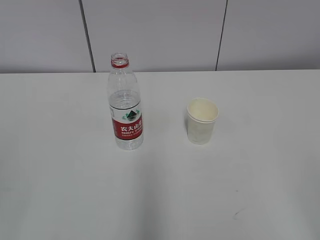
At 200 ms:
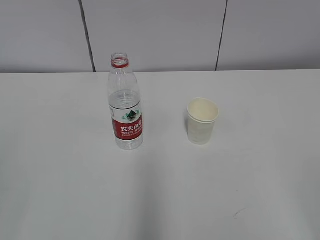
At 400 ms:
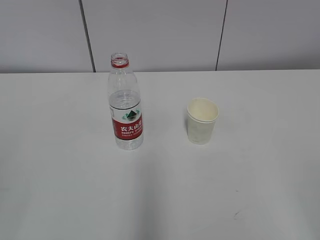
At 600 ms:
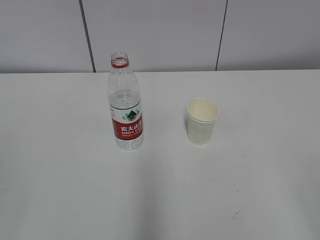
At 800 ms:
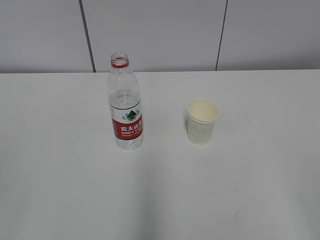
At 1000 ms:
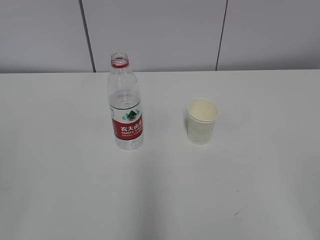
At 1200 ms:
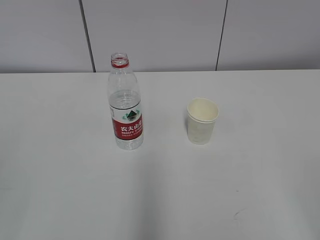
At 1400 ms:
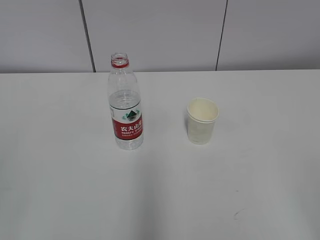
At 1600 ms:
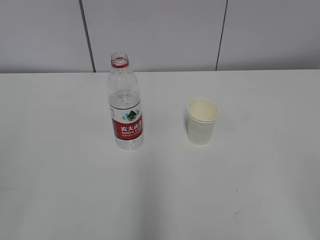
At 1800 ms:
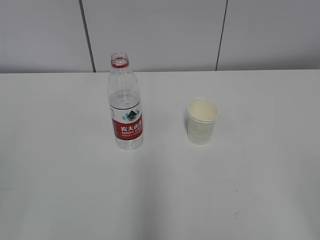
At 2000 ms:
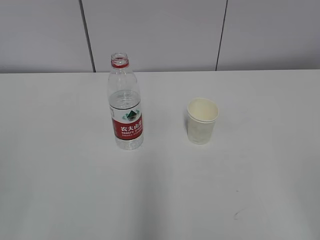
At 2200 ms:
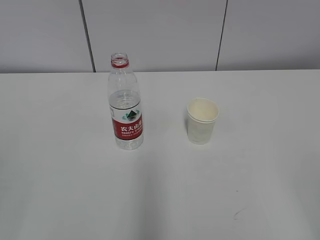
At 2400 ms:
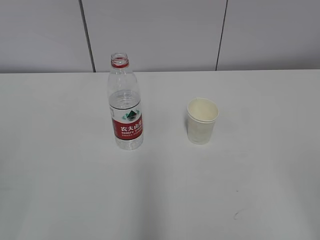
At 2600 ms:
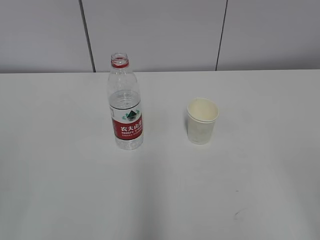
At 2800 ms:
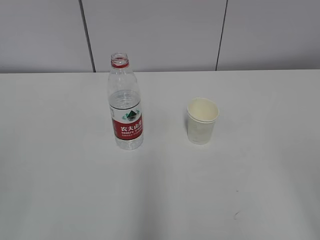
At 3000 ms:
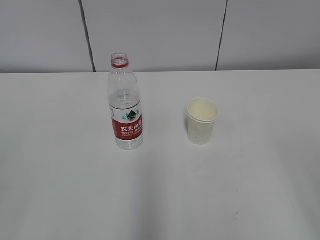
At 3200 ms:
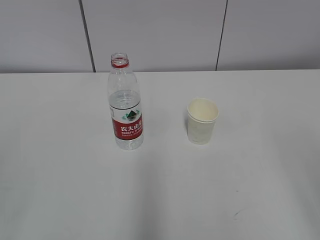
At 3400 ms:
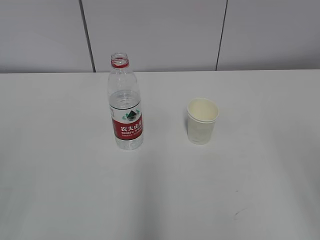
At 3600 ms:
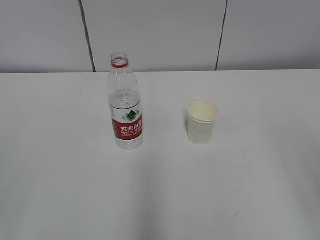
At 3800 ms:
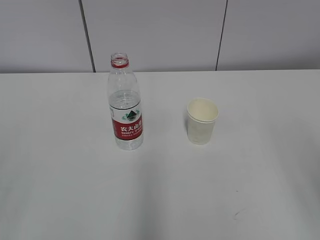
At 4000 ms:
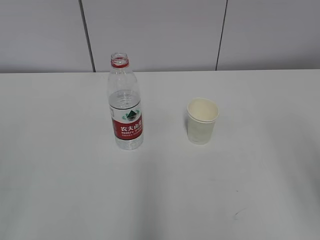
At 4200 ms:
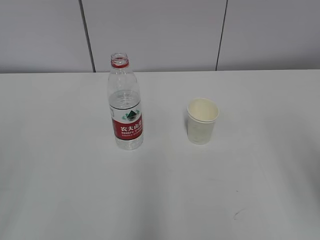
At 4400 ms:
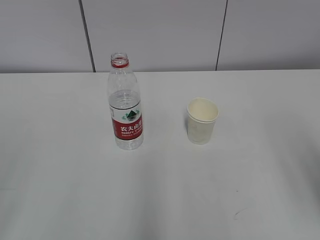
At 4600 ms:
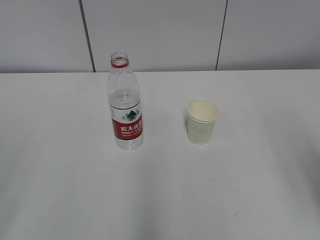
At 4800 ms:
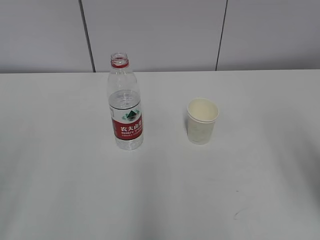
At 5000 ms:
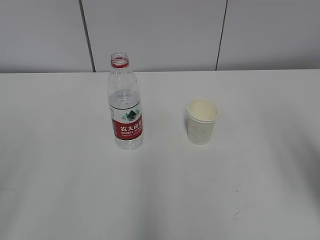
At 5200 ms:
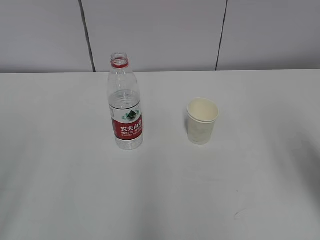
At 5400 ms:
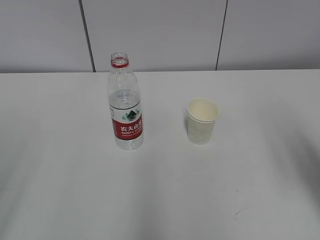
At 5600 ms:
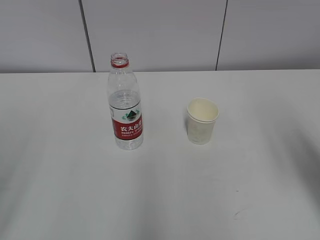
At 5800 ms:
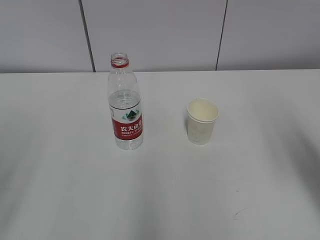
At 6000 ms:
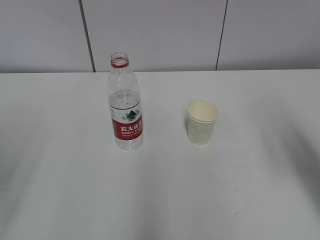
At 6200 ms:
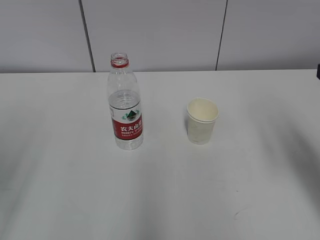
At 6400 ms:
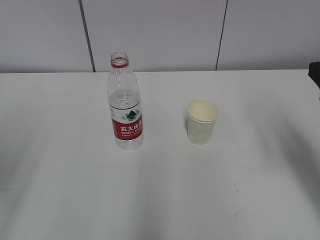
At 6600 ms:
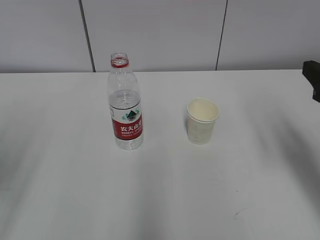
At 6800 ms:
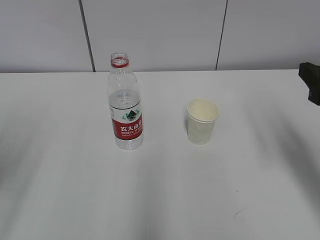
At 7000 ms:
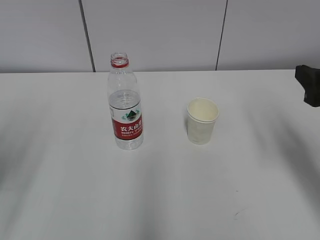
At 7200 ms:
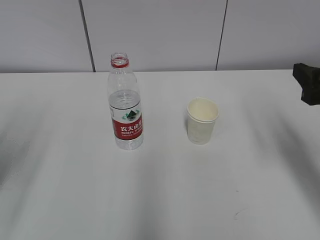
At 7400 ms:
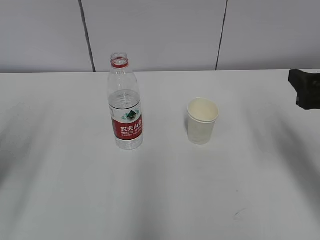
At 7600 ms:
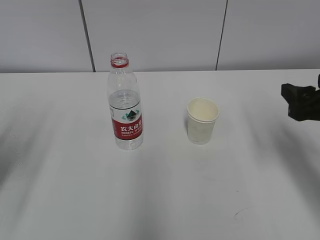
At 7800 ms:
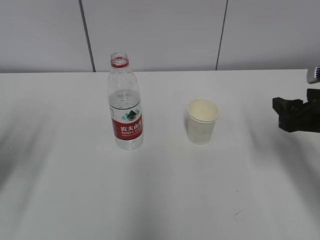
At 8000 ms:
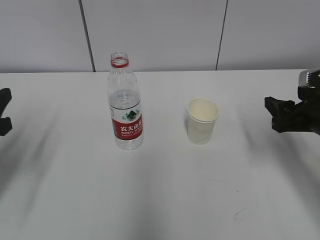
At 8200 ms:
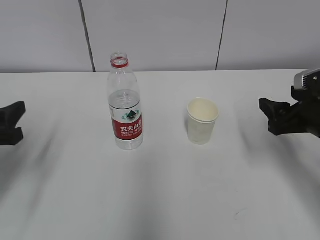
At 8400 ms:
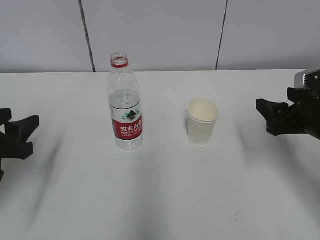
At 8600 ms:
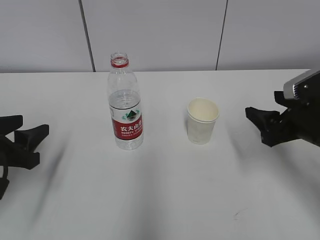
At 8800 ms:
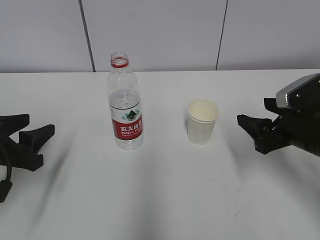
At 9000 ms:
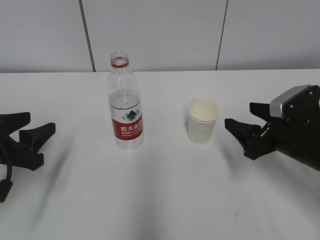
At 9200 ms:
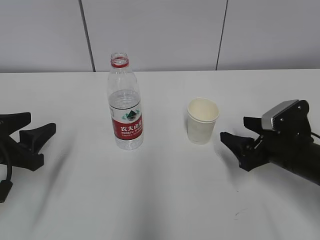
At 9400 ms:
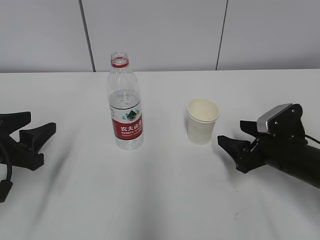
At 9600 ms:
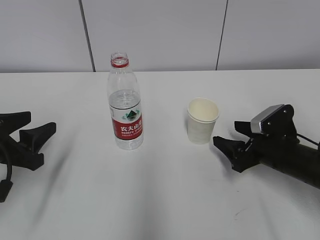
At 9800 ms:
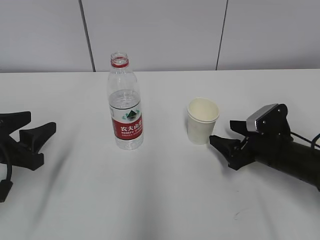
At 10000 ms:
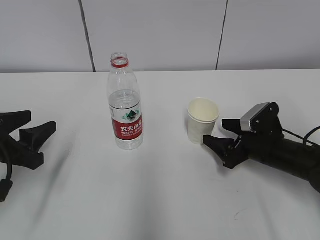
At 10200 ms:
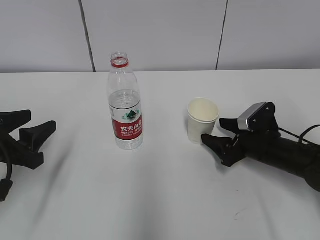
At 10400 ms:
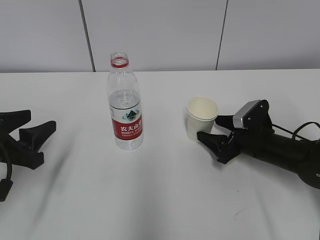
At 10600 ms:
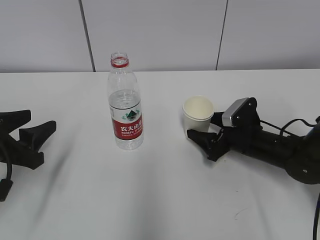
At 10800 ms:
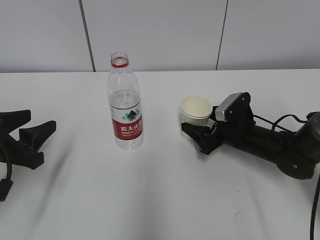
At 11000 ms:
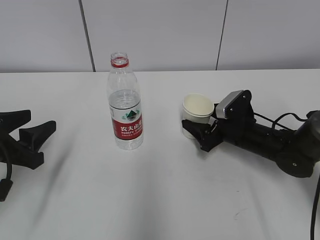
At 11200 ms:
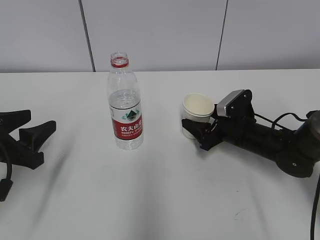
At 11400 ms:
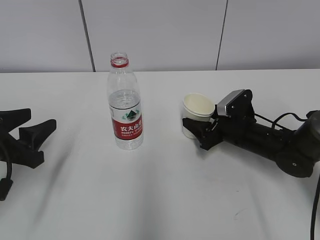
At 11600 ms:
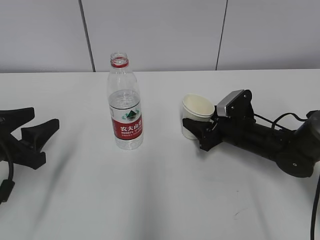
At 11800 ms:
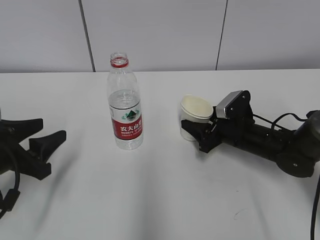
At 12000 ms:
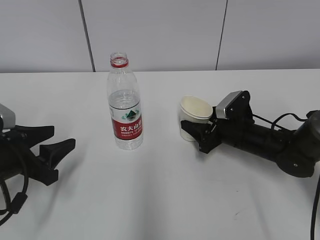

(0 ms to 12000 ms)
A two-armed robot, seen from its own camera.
4400 ms - 6000 ms: The right gripper goes some 10 cm forward.
6000 ms - 7600 ms: The right gripper goes roughly 10 cm downward and forward.
7600 ms - 9000 ms: The two grippers go some 10 cm downward.
9000 ms - 10400 ms: The right gripper is displaced downward and forward by roughly 10 cm.
10400 ms - 12000 ms: The right gripper closes.

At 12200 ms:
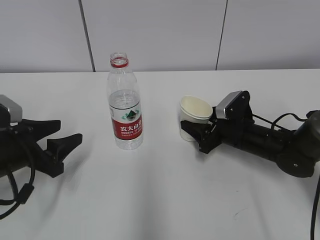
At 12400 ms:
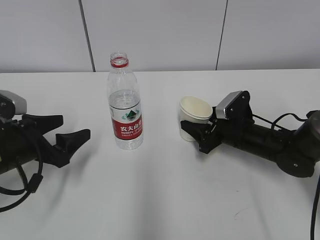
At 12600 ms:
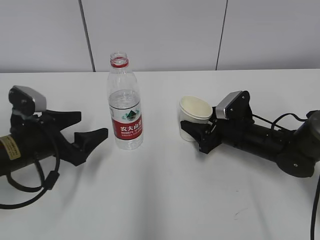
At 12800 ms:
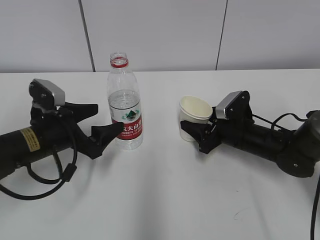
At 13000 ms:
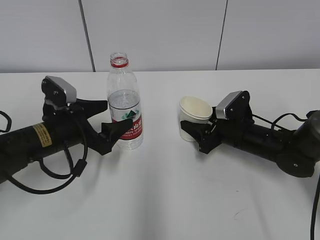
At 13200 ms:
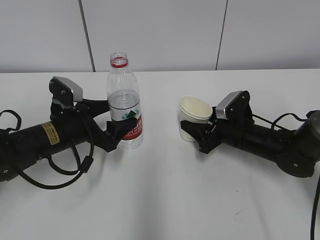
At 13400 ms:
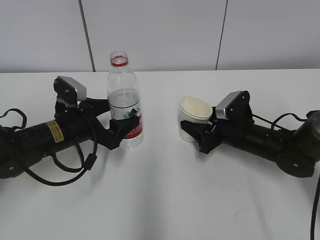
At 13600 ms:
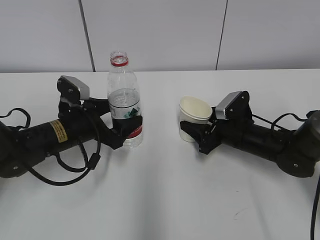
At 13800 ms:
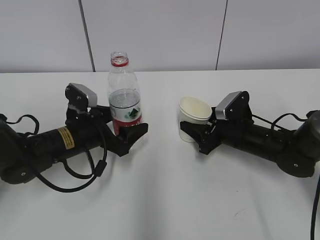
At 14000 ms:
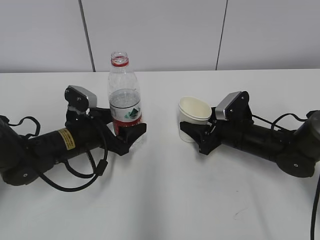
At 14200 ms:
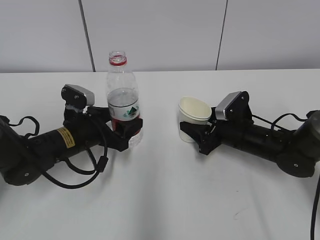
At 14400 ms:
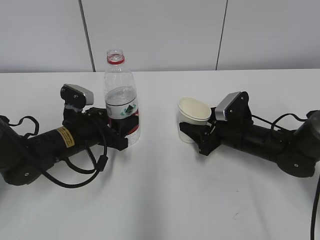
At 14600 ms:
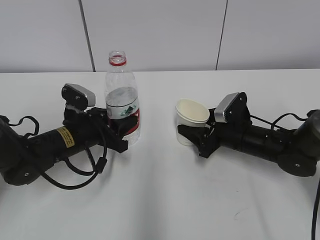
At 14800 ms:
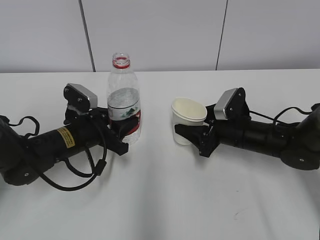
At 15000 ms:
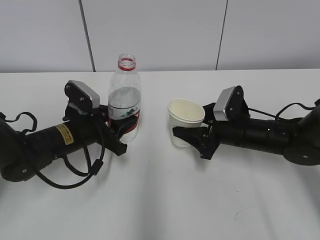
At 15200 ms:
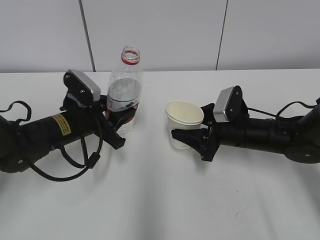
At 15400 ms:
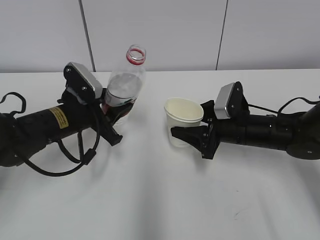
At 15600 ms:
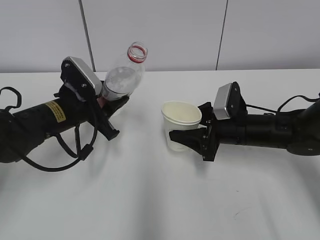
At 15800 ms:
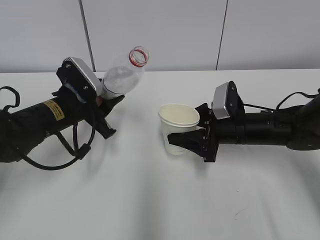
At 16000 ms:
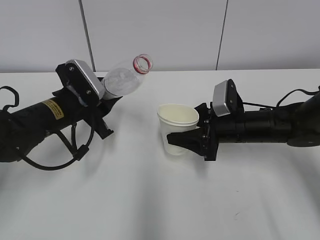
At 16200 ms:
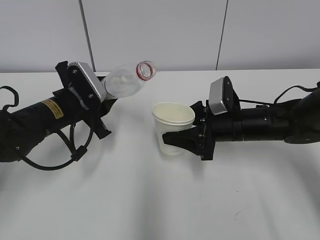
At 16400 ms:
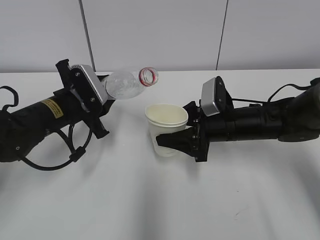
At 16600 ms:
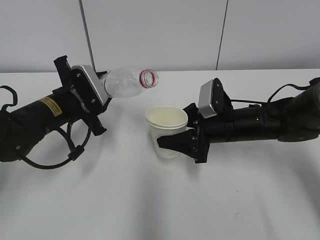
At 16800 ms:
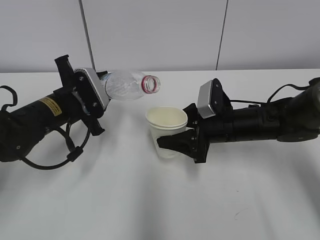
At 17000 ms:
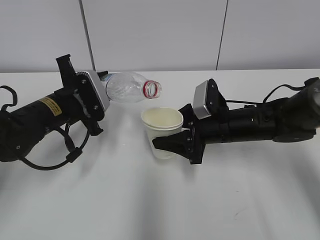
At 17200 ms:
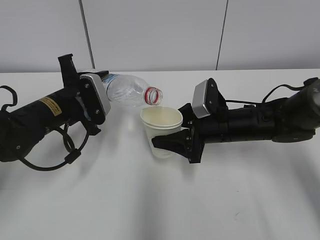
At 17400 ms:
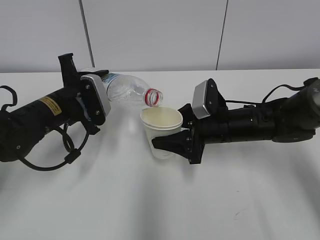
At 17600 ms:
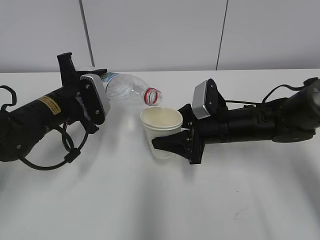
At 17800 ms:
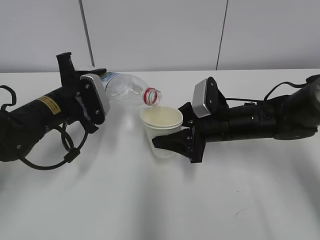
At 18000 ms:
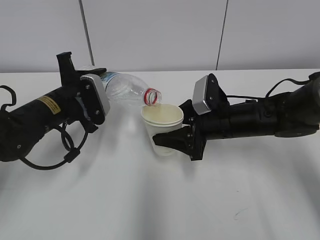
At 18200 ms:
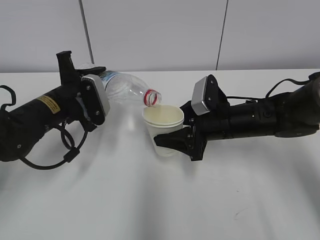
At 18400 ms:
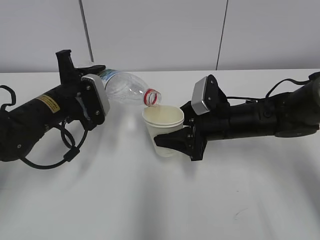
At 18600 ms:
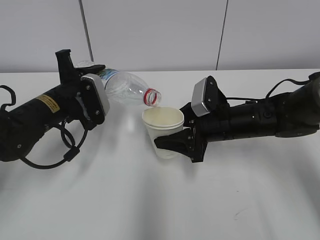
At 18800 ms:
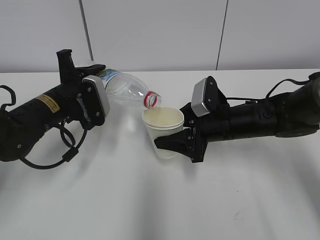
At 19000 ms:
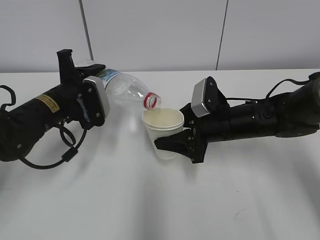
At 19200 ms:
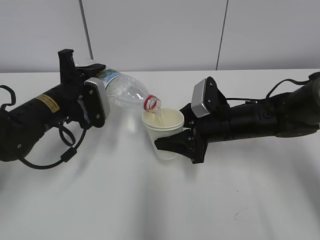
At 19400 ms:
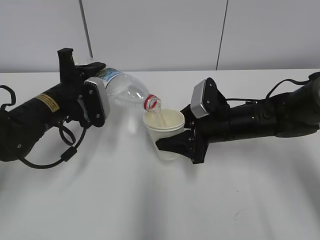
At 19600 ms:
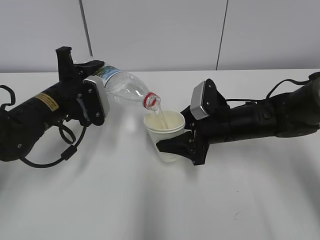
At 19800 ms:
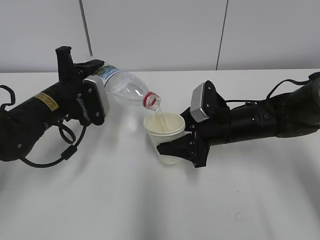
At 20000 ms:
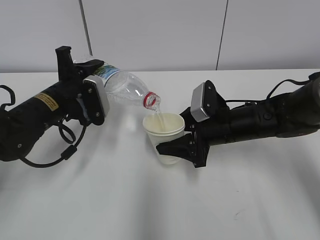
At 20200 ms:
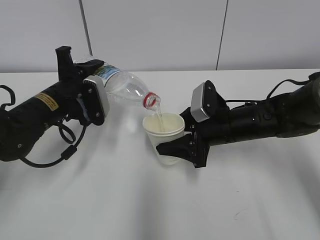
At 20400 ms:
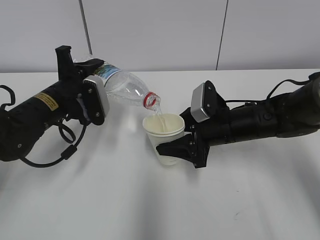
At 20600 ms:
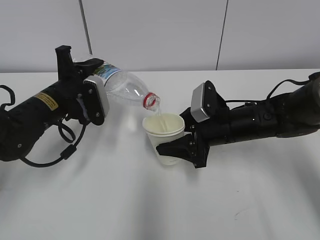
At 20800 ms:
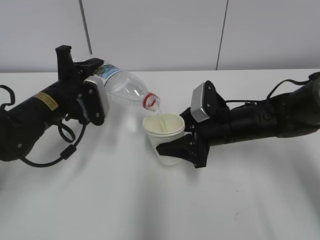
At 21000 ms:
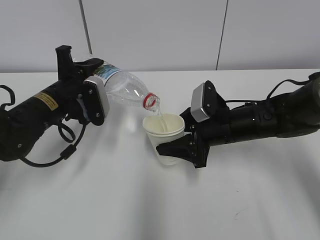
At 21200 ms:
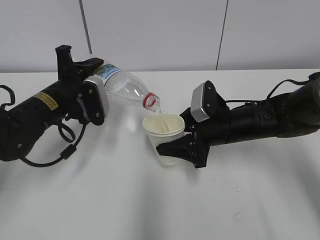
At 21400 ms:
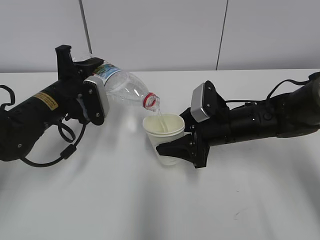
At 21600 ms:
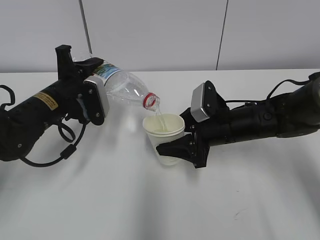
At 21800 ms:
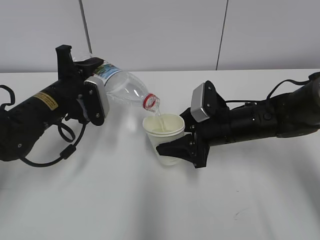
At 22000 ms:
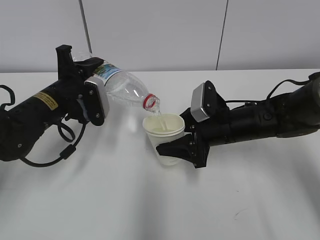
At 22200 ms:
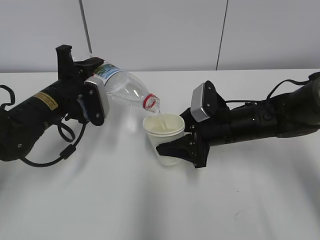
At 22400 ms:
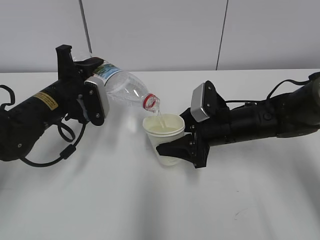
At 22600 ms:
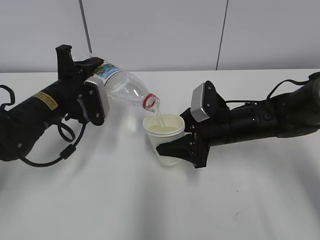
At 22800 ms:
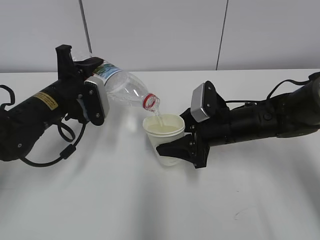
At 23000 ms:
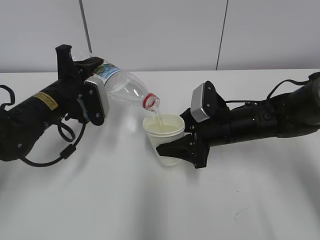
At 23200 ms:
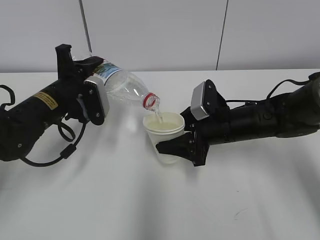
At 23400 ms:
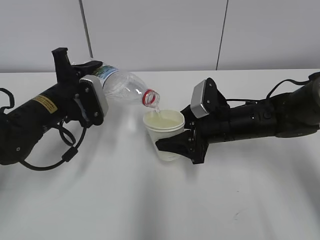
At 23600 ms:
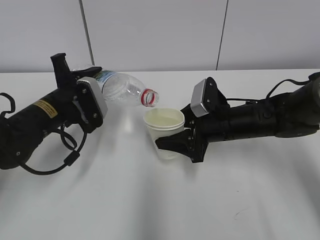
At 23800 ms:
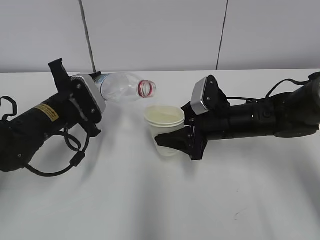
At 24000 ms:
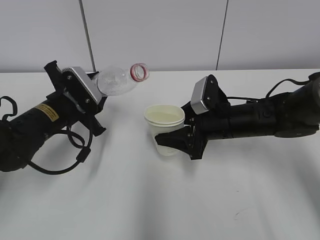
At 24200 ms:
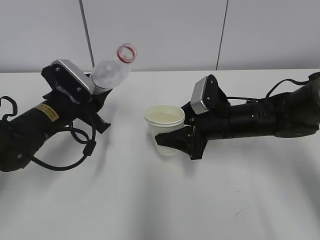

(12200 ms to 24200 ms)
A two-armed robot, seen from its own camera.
Step, 12200 ms - 15600 ms: Lift the paper cup with the right hand.
Step, 15800 ms - 19600 ms: Fill water with the right hand.
Step, 15800 ms - 19600 ms: Pour water with the left hand.
12200 ms - 13800 ms: The left gripper travels to the right and forward by some 10 cm.
13800 ms - 15200 ms: The left gripper closes its fingers.
16600 ms - 18200 ms: The grippers make only small movements.
18200 ms - 19800 ms: There are only small adjustments of the grippers.
19800 ms - 22600 ms: Both grippers stay put.
